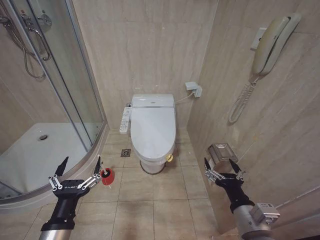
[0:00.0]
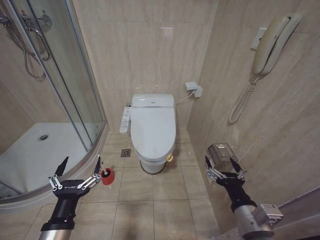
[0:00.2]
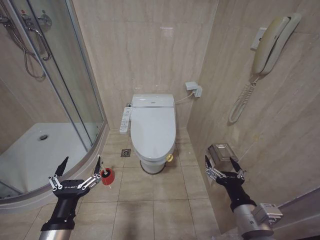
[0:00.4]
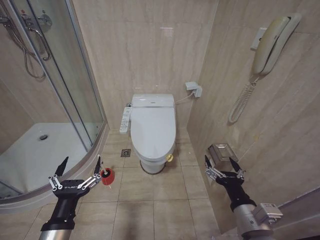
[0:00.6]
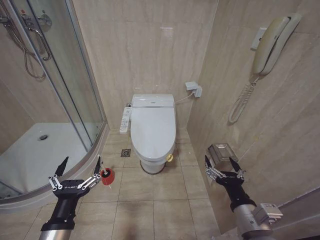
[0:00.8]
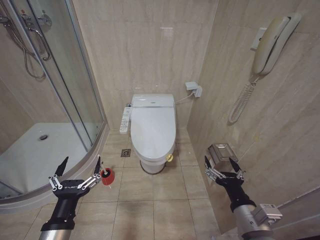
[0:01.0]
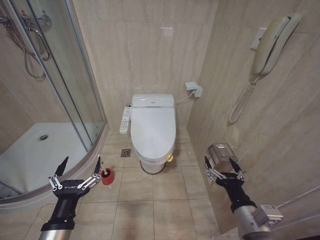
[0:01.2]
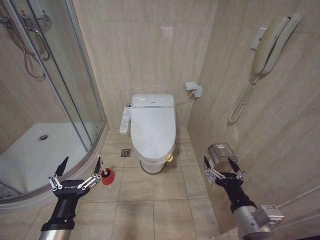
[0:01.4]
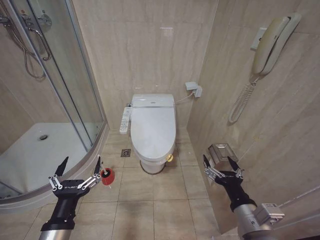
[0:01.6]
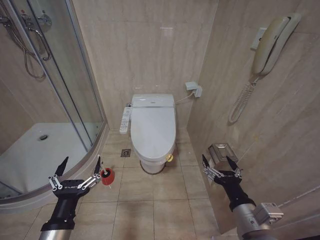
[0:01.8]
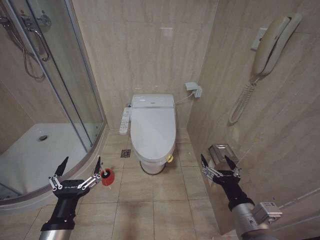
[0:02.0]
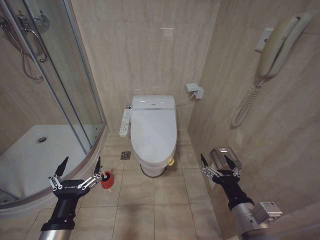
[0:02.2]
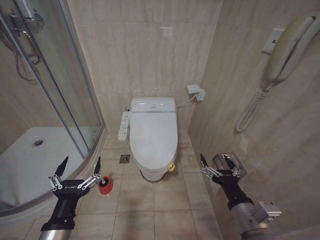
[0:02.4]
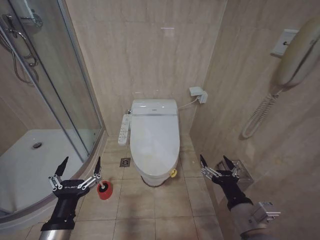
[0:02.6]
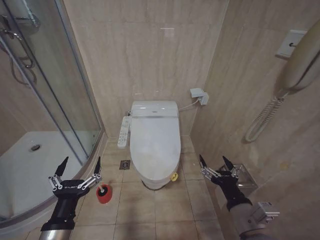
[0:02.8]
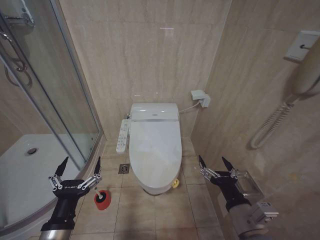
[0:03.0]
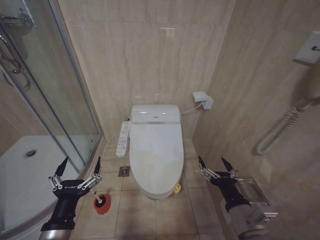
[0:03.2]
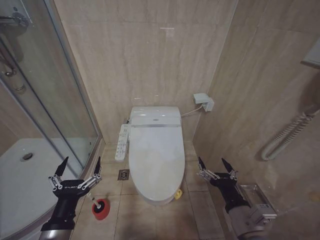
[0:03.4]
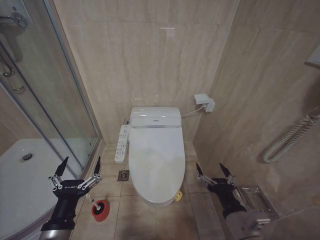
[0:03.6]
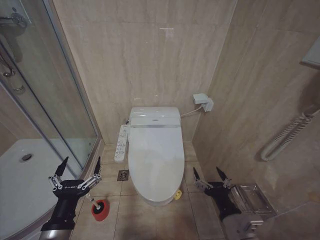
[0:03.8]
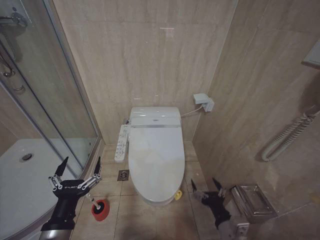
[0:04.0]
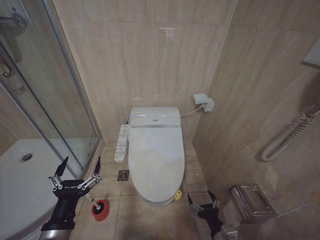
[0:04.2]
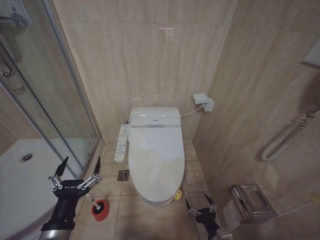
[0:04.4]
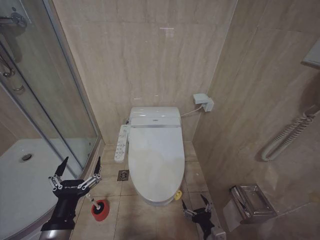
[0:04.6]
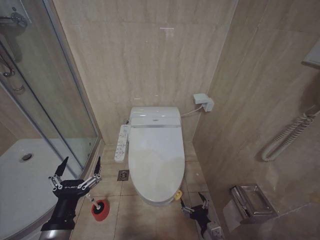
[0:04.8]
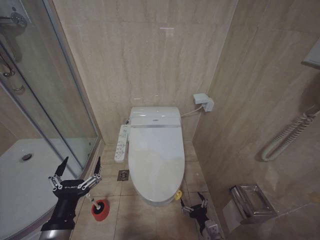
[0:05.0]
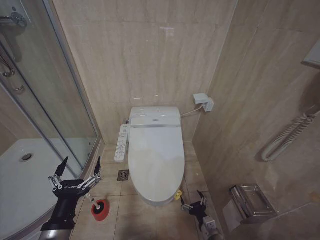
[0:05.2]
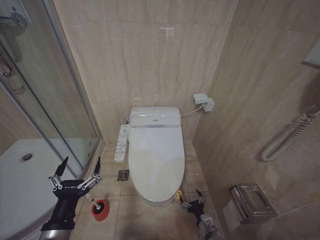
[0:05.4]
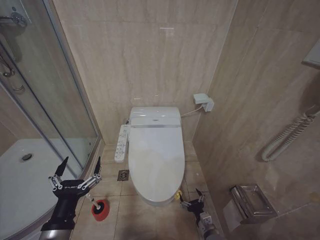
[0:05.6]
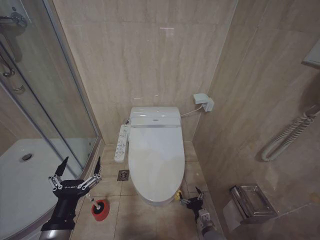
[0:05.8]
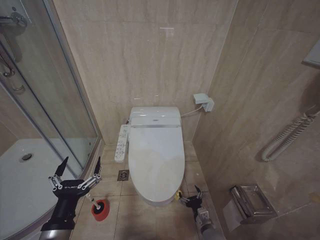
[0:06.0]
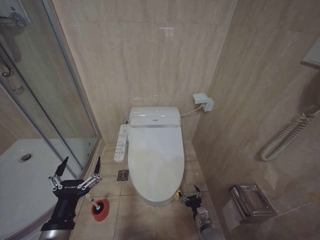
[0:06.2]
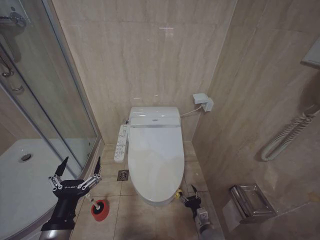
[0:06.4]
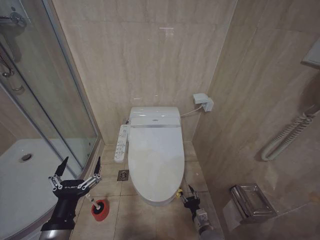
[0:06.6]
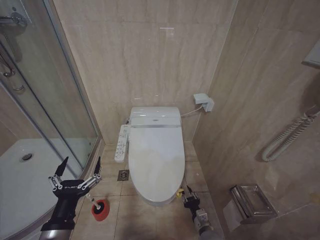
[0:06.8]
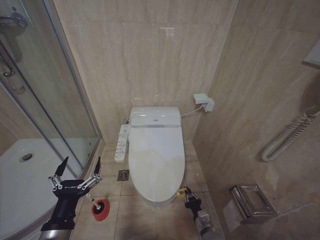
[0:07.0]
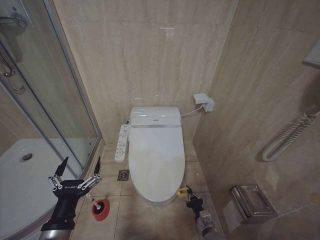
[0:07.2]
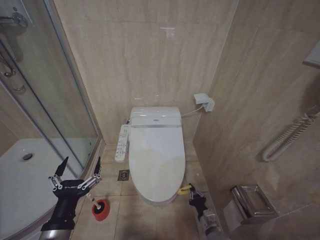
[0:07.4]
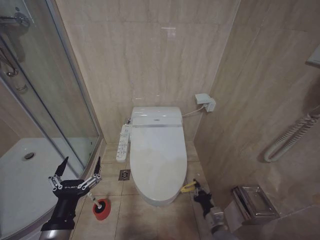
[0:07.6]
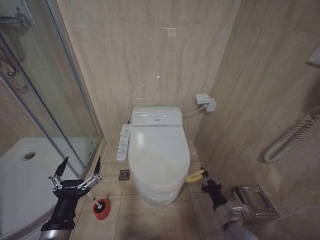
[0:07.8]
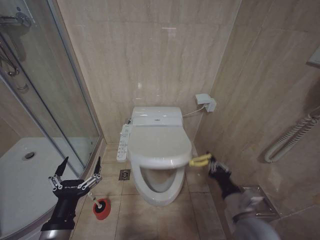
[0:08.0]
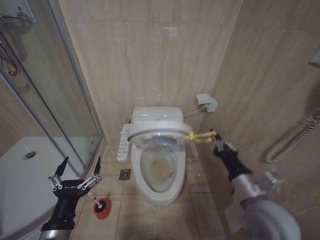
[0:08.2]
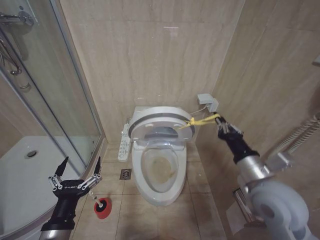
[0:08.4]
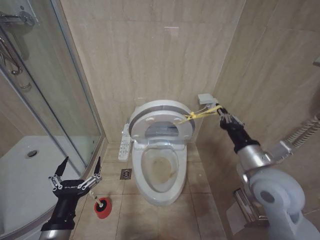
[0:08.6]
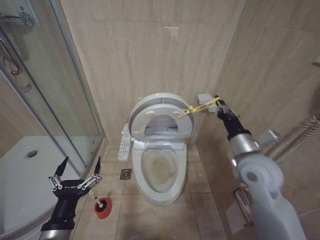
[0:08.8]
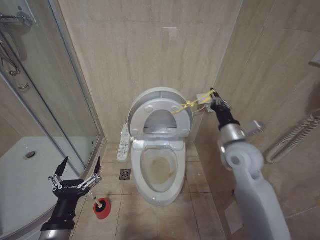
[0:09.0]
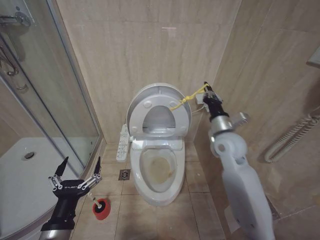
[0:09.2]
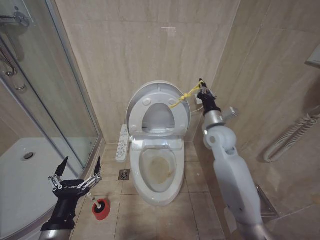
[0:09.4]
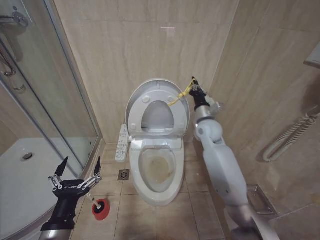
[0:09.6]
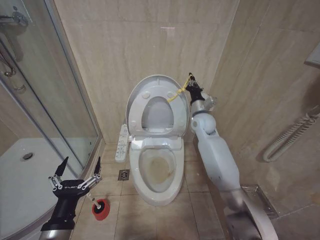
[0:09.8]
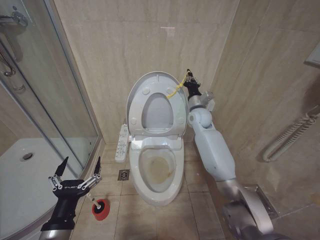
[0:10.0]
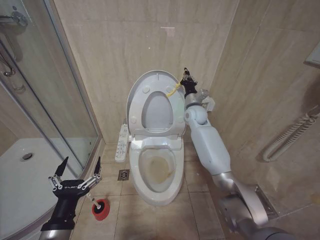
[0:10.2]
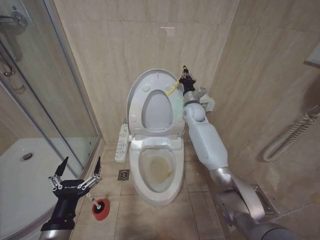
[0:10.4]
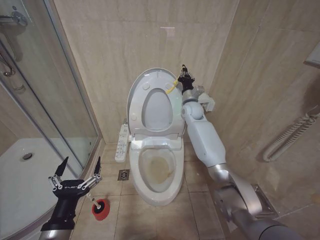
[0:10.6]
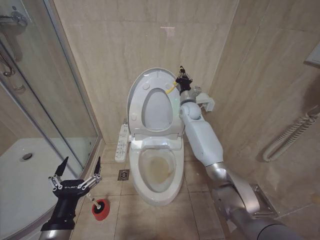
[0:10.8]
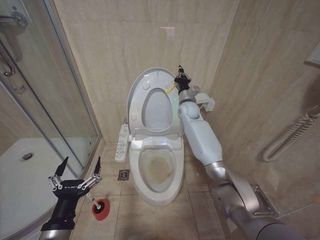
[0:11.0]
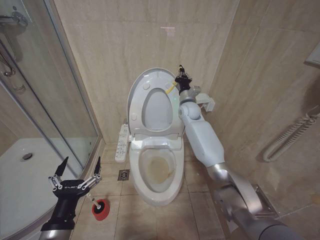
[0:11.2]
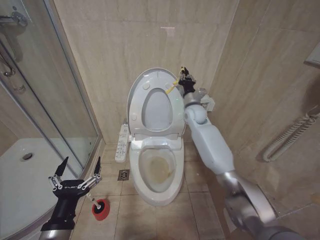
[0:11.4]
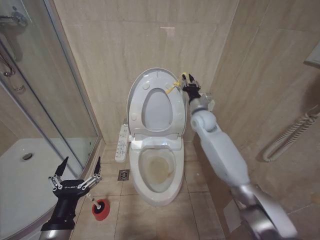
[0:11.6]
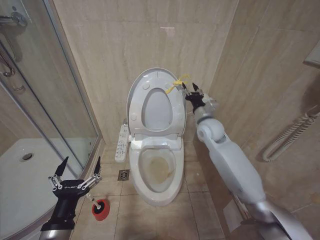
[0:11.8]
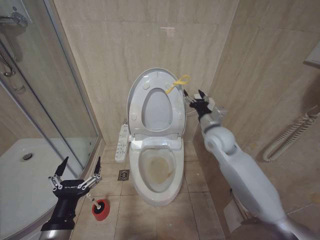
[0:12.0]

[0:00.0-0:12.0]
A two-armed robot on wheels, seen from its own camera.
Task of the whole recording: Open the toilet lid, clean the toilet bowl with a toilet brush, close the toilet lid, and flush.
0:03.0 to 0:04.4: The right gripper travels downward by approximately 15 cm.
0:04.4 to 0:06.0: The right gripper travels downward and forward by about 15 cm.
0:06.0 to 0:07.6: The right gripper shifts some 5 cm upward, and closes.
0:07.6 to 0:09.0: The right gripper shifts roughly 35 cm upward.
0:09.0 to 0:10.4: The right gripper is displaced forward by roughly 25 cm.
0:10.4 to 0:12.0: The right gripper heads backward, covering roughly 15 cm, and opens up.

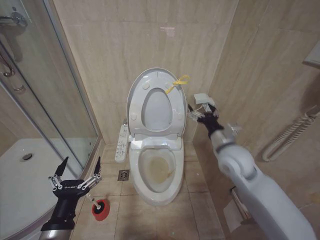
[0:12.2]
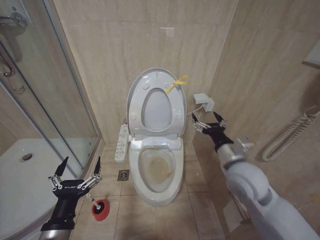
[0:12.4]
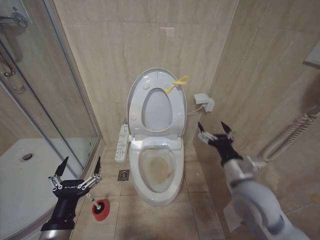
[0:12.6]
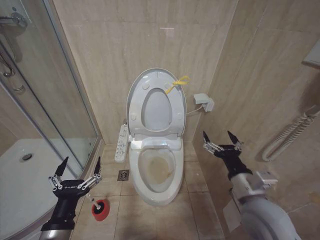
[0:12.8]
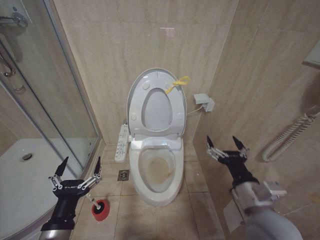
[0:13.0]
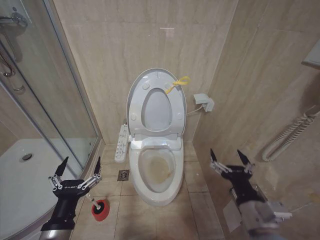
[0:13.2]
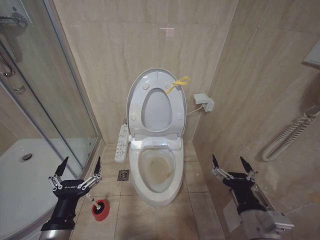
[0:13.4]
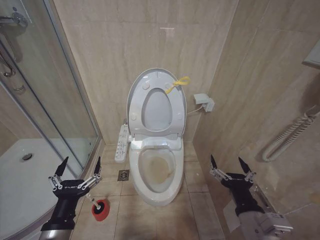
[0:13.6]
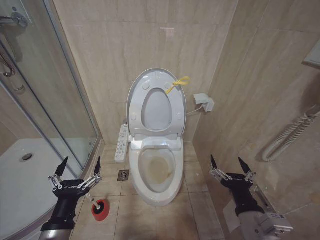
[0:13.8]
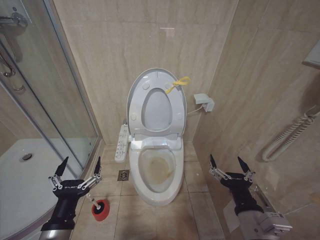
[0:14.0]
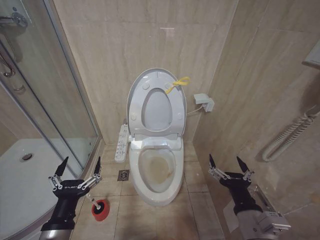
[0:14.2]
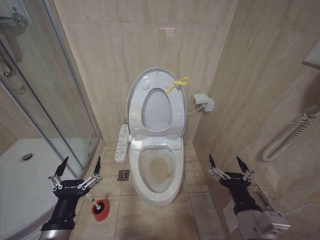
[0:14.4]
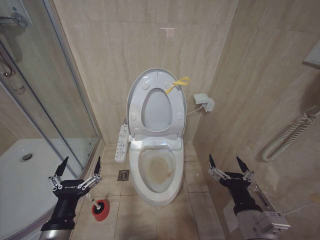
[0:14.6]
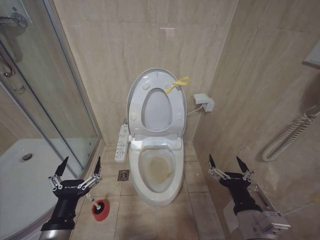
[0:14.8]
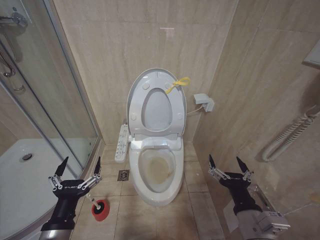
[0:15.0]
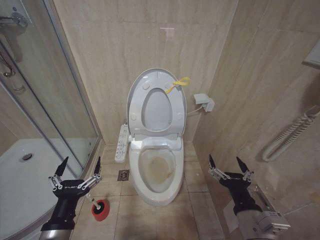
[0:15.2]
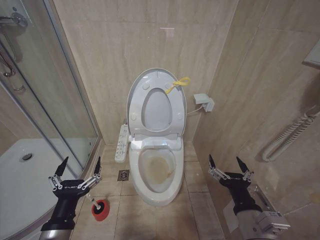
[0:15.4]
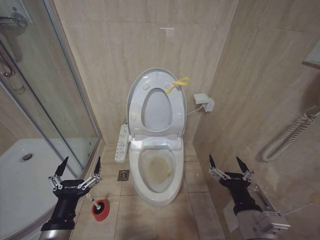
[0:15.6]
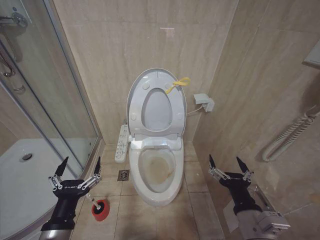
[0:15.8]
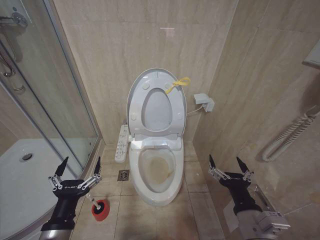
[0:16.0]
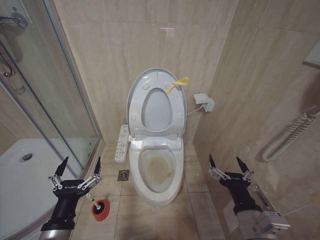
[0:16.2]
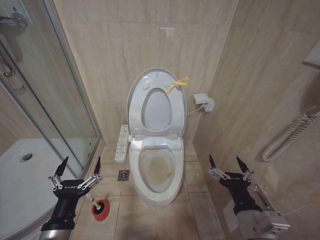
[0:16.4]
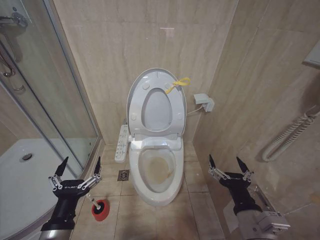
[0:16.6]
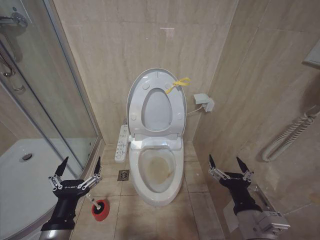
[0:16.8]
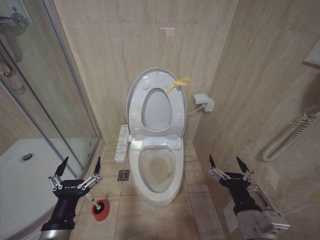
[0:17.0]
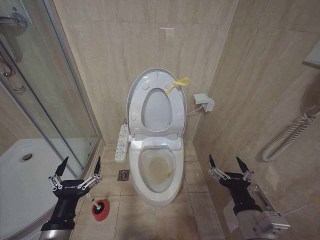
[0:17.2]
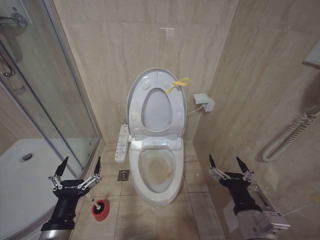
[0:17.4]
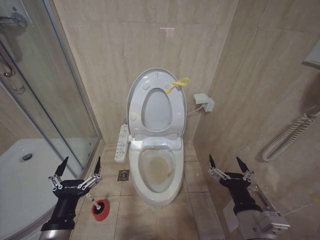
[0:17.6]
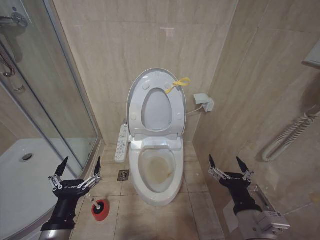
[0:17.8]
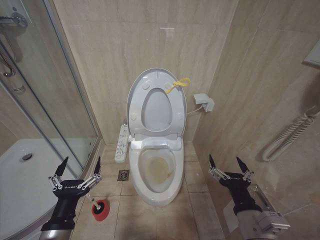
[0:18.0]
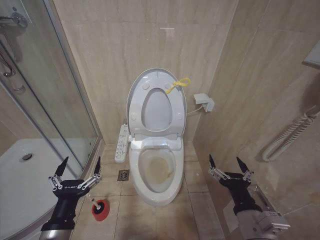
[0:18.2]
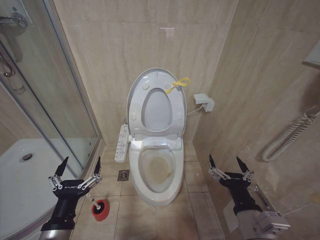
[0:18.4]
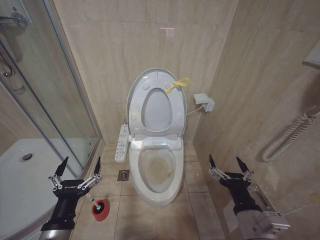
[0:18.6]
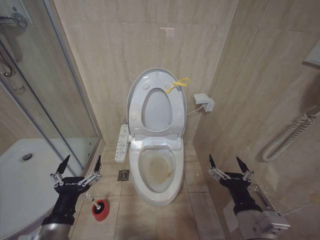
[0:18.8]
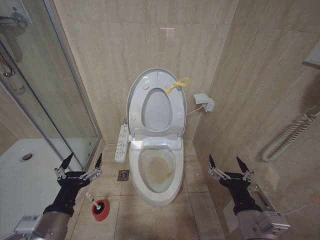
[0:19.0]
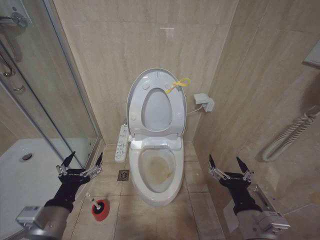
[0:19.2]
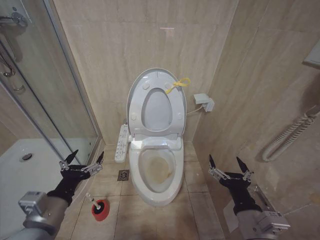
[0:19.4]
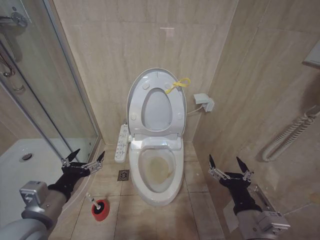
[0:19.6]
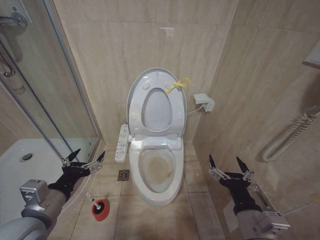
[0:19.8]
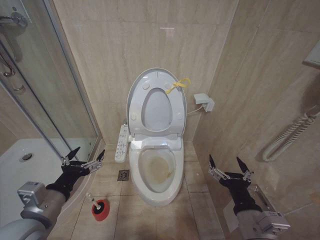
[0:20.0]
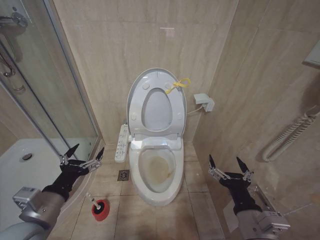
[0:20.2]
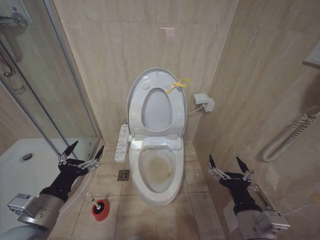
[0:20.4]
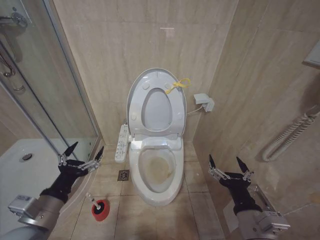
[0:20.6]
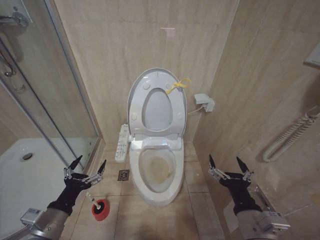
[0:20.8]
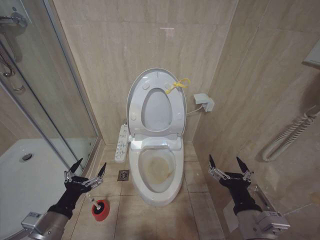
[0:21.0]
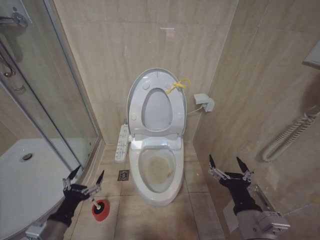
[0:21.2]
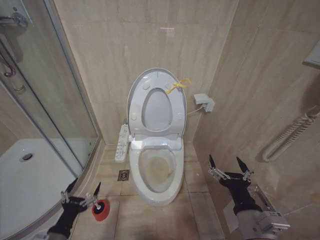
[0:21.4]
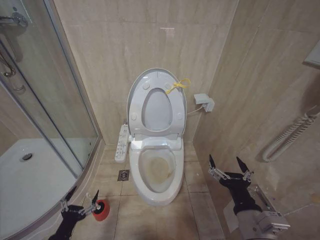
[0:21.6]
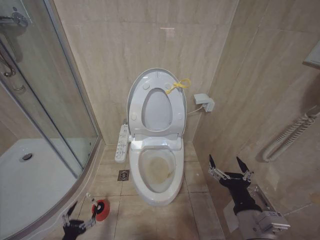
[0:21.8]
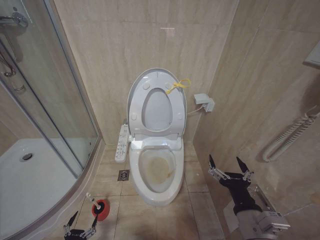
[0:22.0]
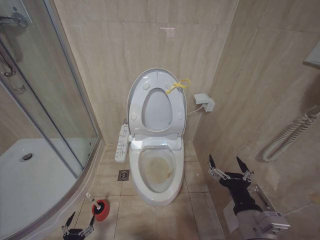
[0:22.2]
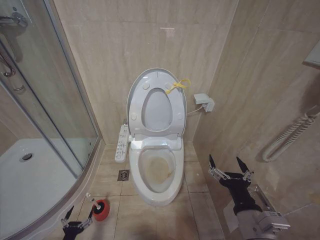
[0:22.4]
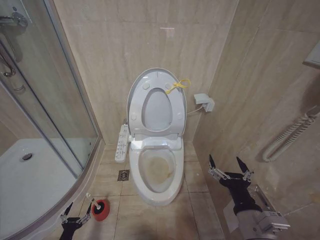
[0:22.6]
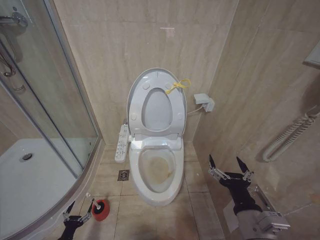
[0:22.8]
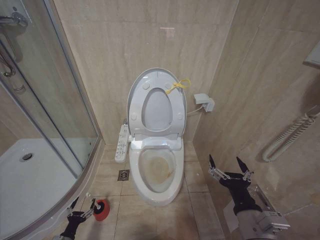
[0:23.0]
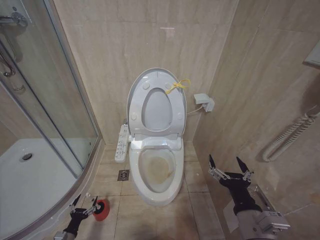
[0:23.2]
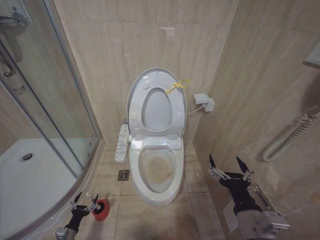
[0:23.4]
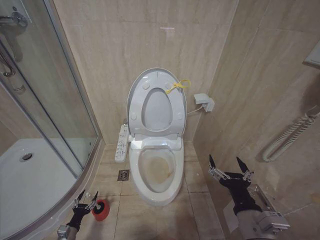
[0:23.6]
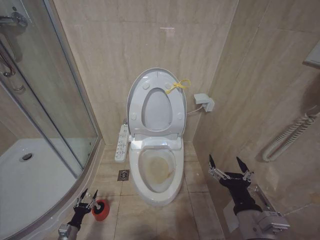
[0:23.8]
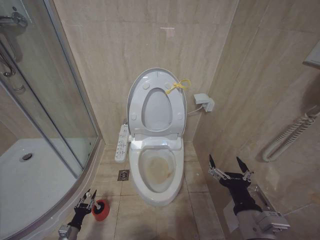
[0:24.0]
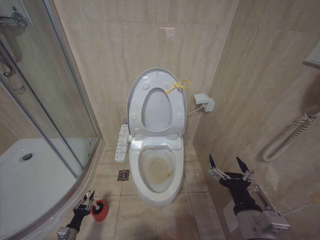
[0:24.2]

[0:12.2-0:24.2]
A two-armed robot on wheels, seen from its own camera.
Task of the whole recording: Open the toilet lid, clean the toilet bowl with a toilet brush, close the toilet lid, and flush.
0:12.2 to 0:13.8: The right gripper moves backward, about 25 cm.
0:13.8 to 0:18.2: Neither gripper changes place.
0:18.2 to 0:19.8: The left gripper is displaced upward and forward by some 10 cm.
0:19.8 to 0:21.2: The left gripper moves downward, approximately 10 cm.
0:21.2 to 0:22.6: The left gripper goes some 30 cm downward.
0:22.6 to 0:24.2: The left gripper is displaced forward by some 5 cm, and closes up.
